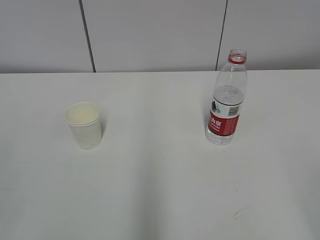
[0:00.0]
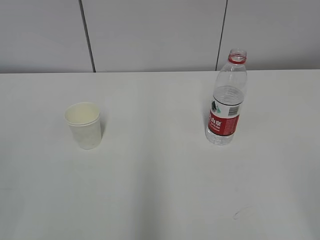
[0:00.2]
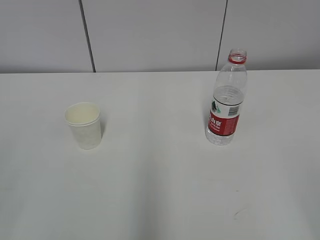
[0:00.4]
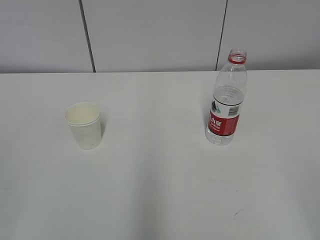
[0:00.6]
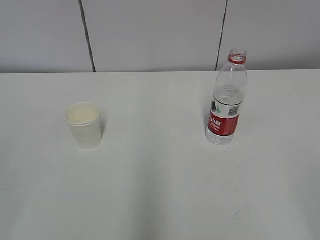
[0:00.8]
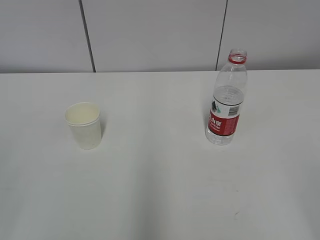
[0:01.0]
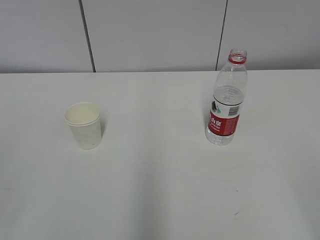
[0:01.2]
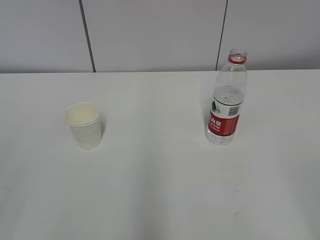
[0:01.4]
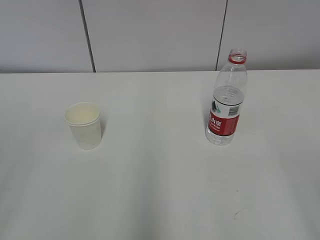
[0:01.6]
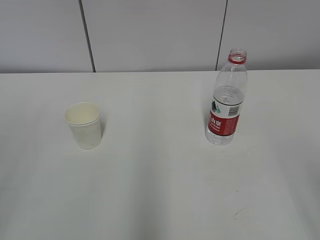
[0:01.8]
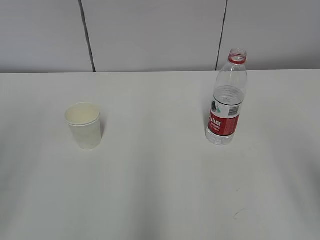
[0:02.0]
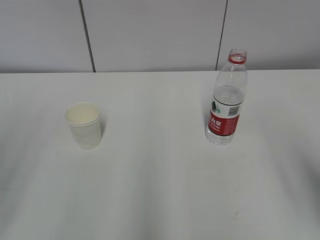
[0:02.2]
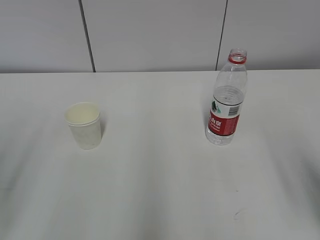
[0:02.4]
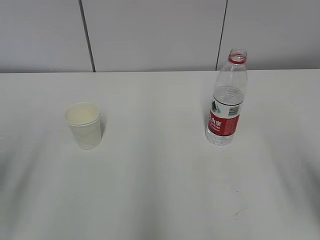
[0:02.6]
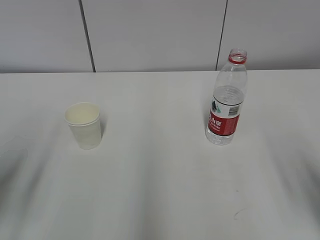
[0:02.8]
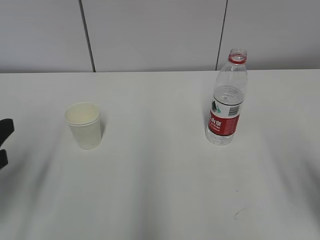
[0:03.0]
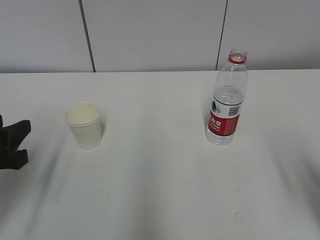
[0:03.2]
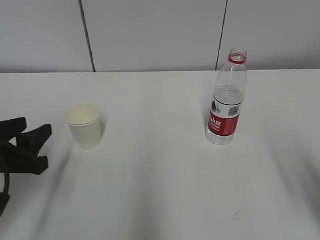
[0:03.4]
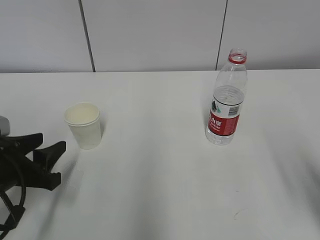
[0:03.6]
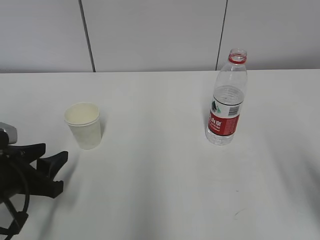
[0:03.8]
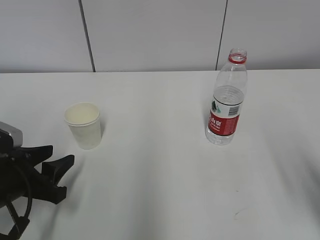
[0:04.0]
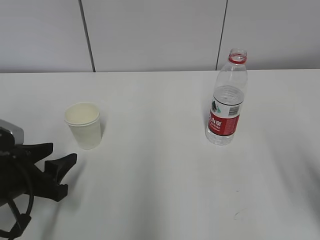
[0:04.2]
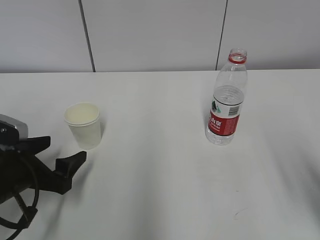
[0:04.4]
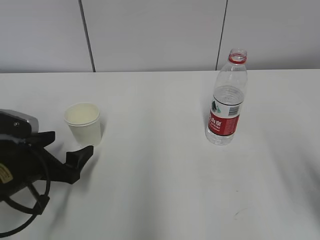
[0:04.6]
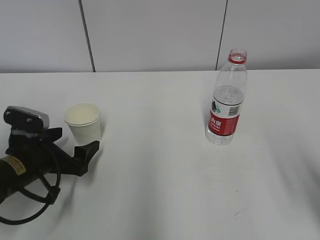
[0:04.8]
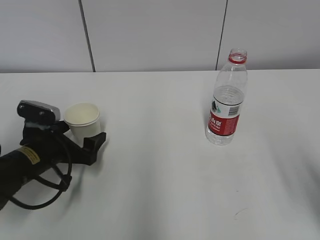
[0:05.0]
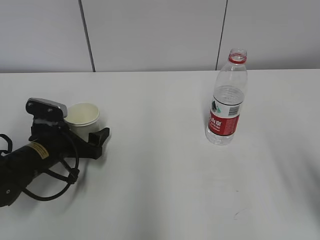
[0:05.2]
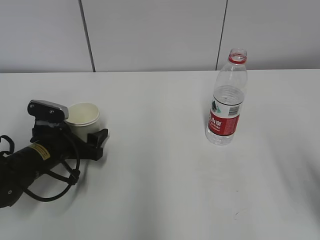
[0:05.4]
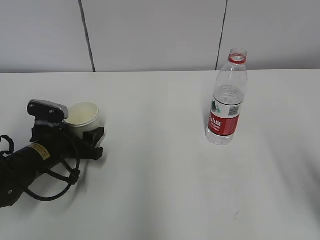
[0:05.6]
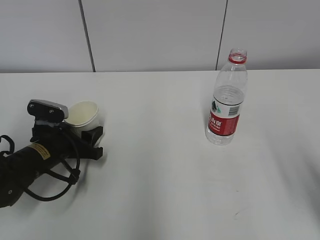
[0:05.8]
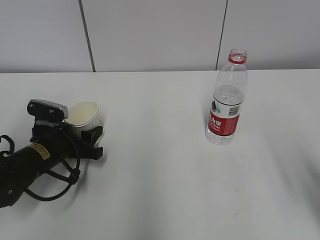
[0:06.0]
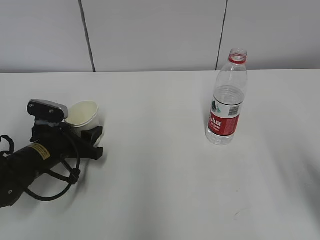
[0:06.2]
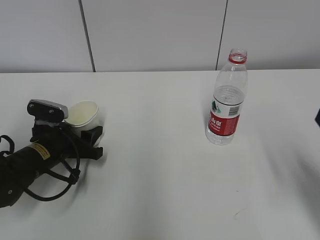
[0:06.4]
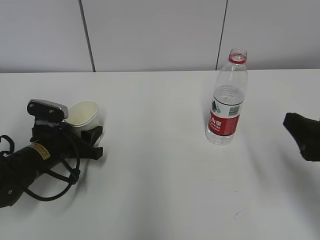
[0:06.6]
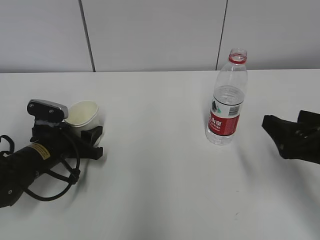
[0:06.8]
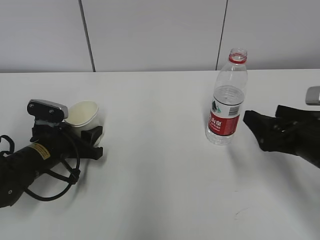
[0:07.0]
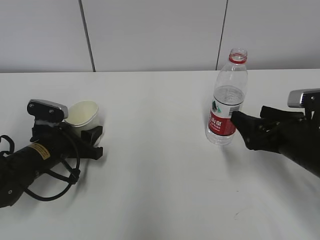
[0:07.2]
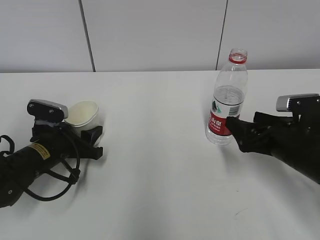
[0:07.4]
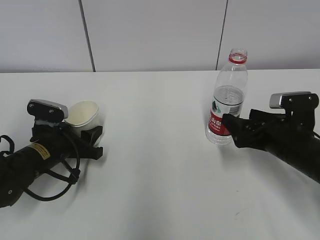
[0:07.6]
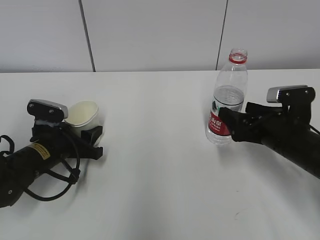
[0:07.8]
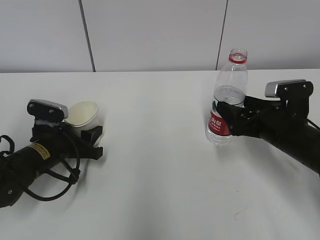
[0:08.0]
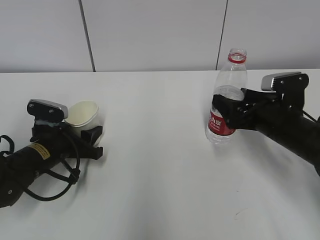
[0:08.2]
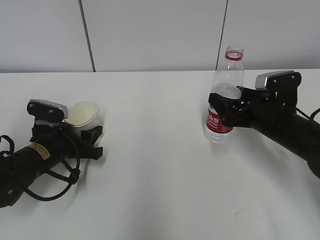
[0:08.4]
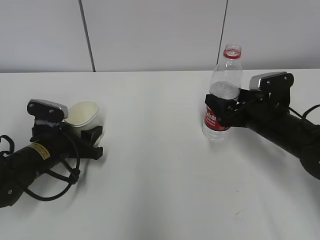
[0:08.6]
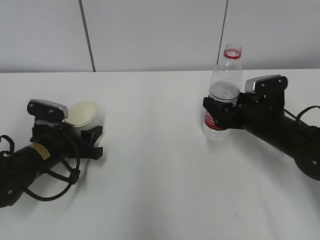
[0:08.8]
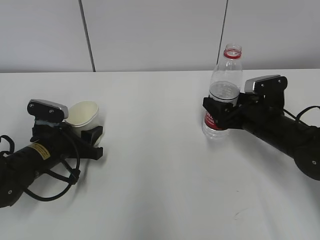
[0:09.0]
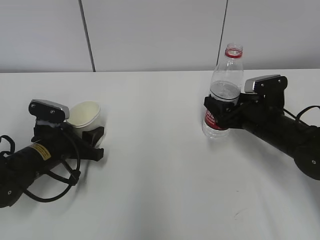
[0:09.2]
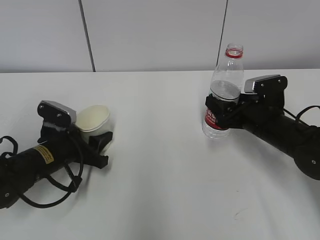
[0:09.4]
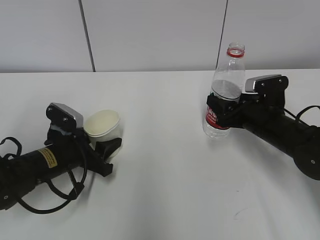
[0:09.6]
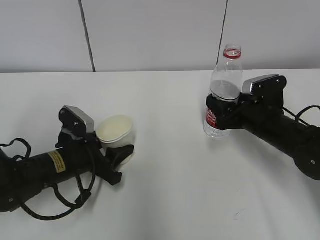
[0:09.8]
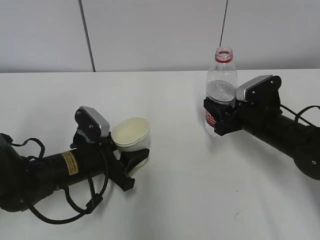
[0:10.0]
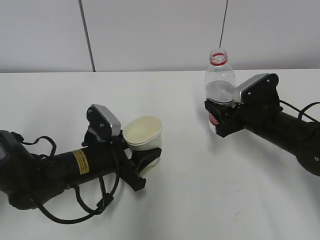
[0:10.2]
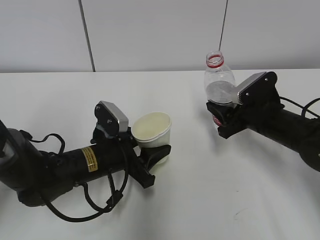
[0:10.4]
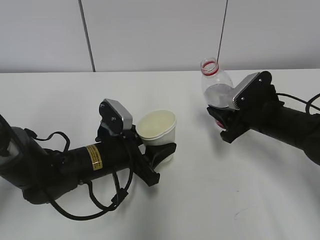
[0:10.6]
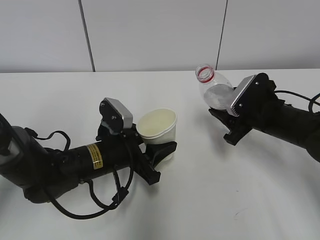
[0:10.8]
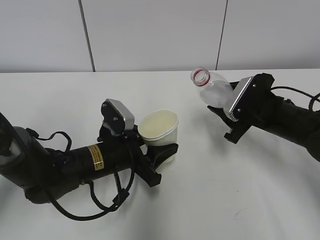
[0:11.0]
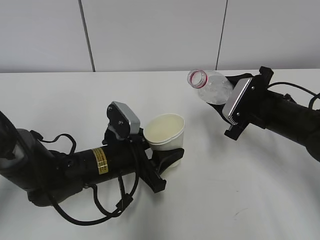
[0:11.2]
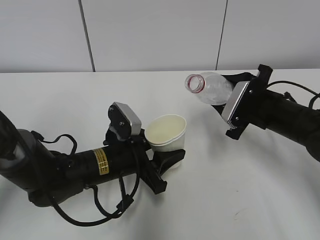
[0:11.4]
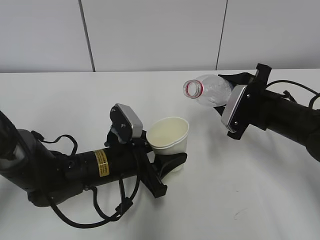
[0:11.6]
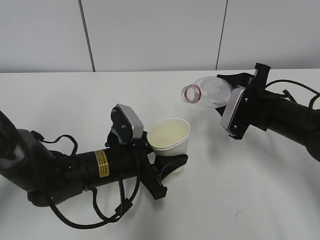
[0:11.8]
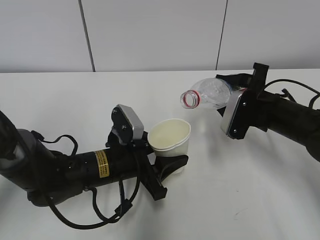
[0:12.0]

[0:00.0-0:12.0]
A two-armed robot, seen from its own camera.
Step, 0:00.0 to 0:07.6: Grab the paper cup with the left hand.
Step, 0:07.8 to 0:08.2: Grab the water bottle with the right hand.
Step, 0:08.4 to 0:10.8: Lift the paper cup with the left hand.
0:01.6 to 0:03.0: The grippers both shift forward and downward by roughly 15 cm.
0:03.0 to 0:04.4: The left gripper moves downward and forward, about 10 cm, and opens.
0:04.4 to 0:06.0: The left gripper is displaced forward by approximately 10 cm, and closes.
0:06.0 to 0:07.6: The right gripper moves forward and downward, approximately 20 cm, and opens its fingers.
0:07.6 to 0:09.0: The right gripper travels forward by approximately 5 cm.
0:09.0 to 0:10.4: The left gripper shifts roughly 10 cm to the right. Meanwhile the right gripper closes its fingers.

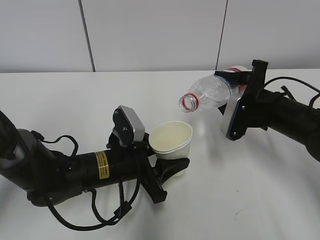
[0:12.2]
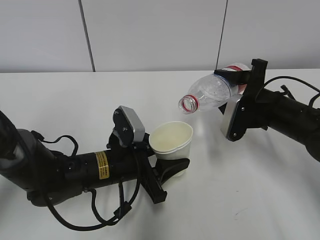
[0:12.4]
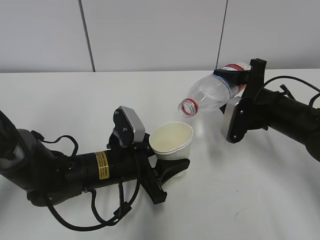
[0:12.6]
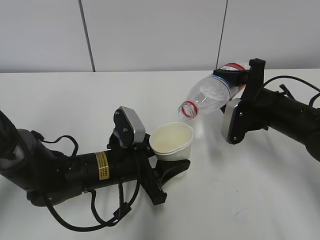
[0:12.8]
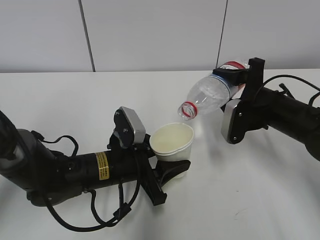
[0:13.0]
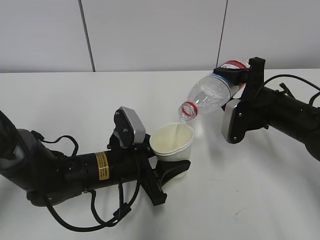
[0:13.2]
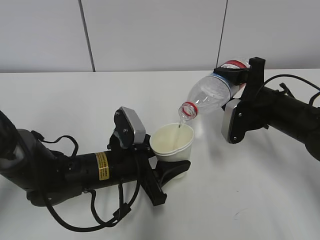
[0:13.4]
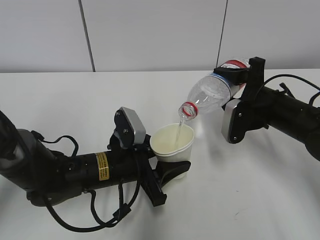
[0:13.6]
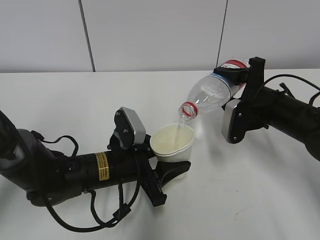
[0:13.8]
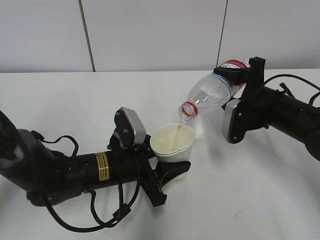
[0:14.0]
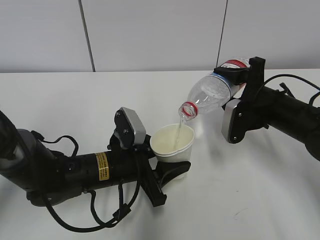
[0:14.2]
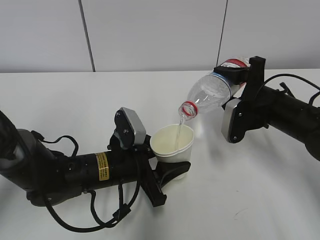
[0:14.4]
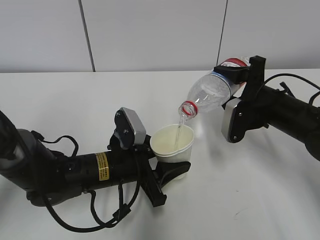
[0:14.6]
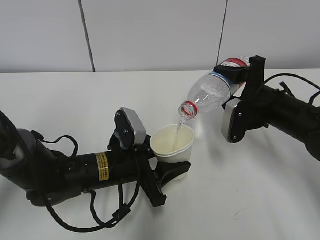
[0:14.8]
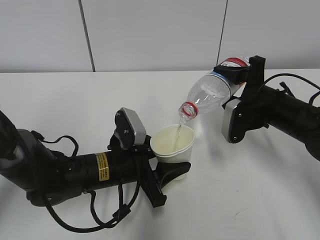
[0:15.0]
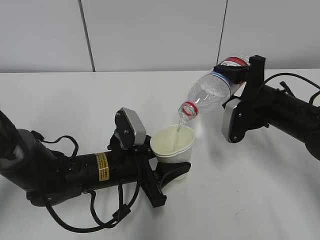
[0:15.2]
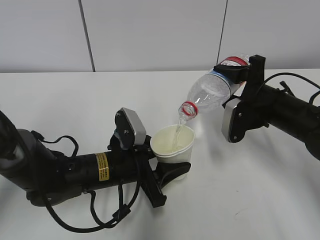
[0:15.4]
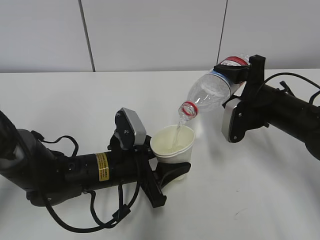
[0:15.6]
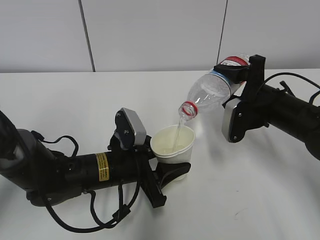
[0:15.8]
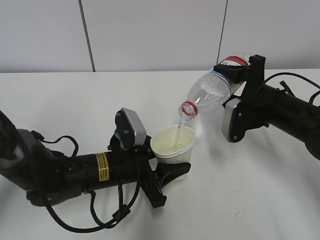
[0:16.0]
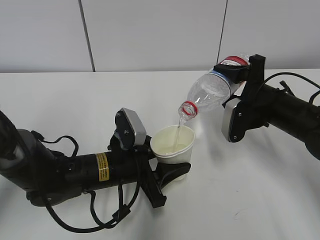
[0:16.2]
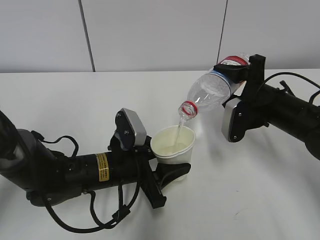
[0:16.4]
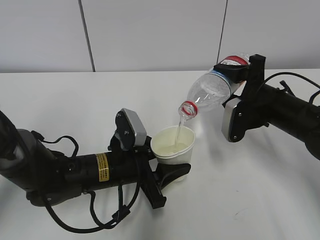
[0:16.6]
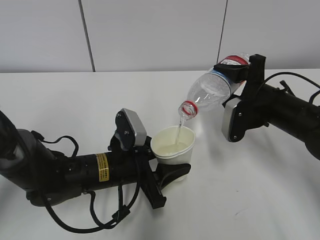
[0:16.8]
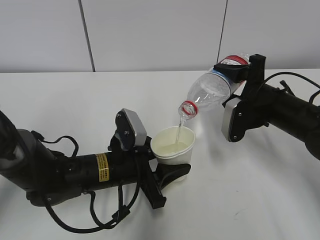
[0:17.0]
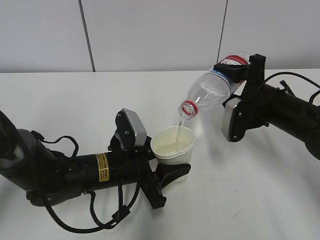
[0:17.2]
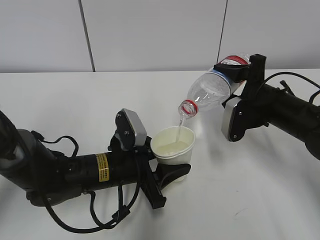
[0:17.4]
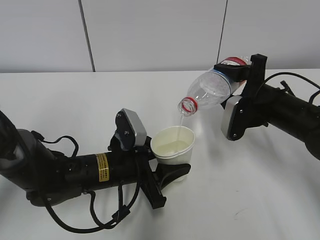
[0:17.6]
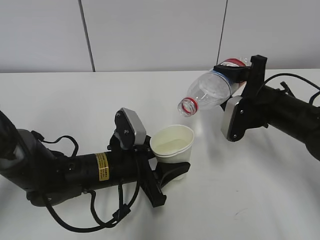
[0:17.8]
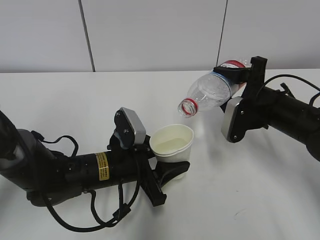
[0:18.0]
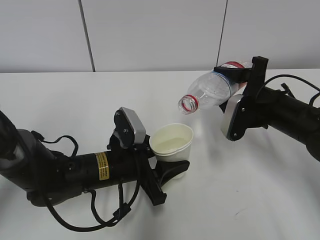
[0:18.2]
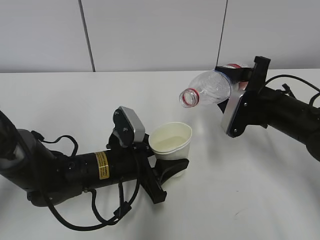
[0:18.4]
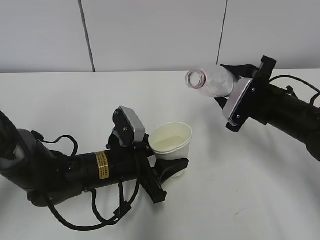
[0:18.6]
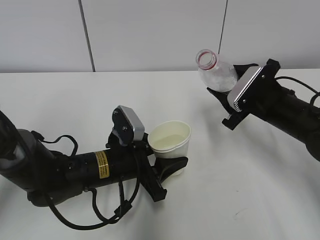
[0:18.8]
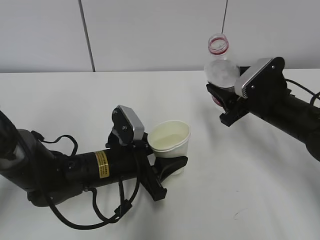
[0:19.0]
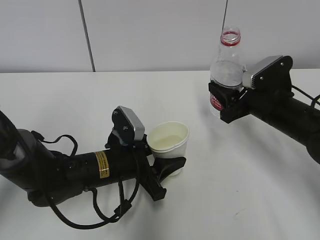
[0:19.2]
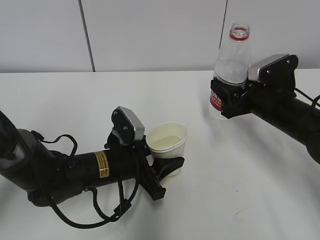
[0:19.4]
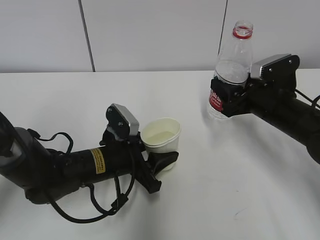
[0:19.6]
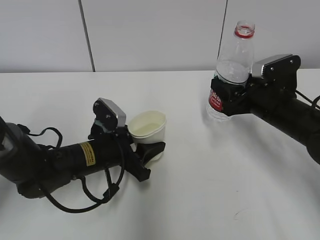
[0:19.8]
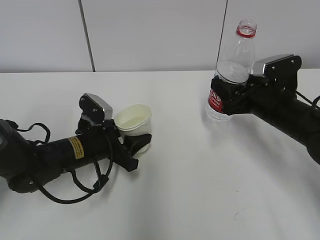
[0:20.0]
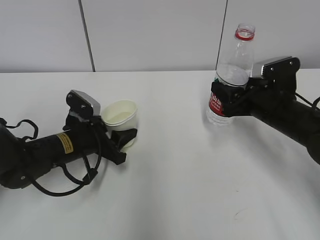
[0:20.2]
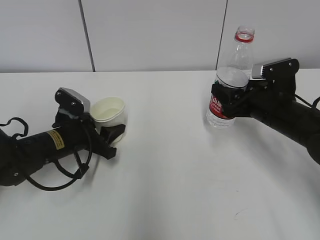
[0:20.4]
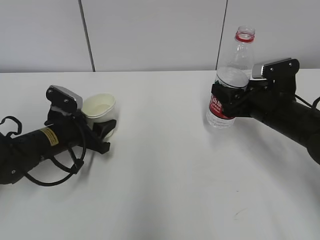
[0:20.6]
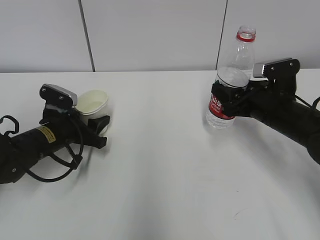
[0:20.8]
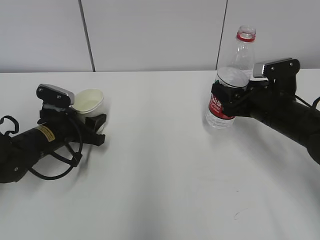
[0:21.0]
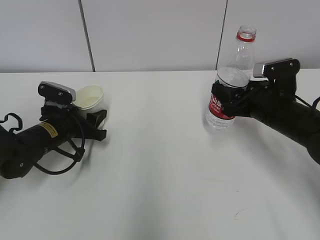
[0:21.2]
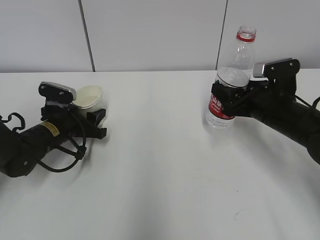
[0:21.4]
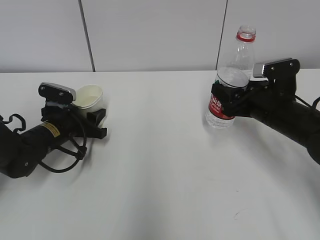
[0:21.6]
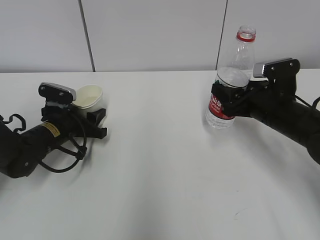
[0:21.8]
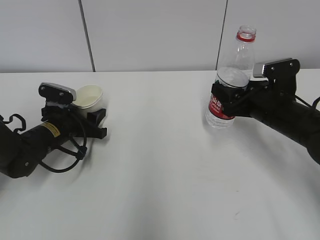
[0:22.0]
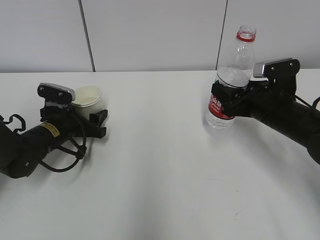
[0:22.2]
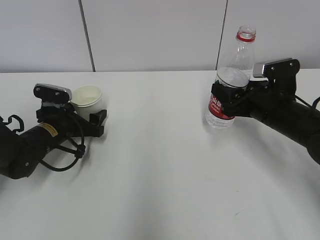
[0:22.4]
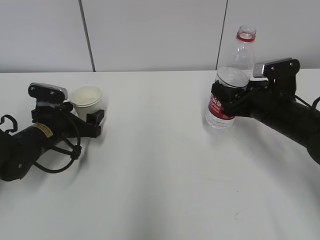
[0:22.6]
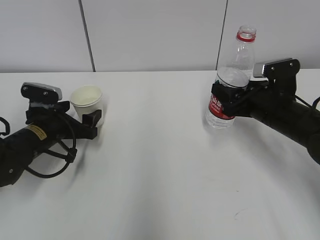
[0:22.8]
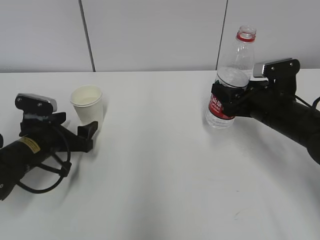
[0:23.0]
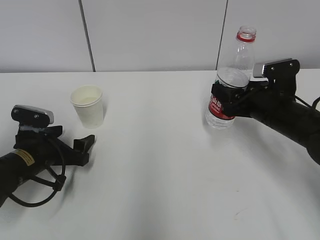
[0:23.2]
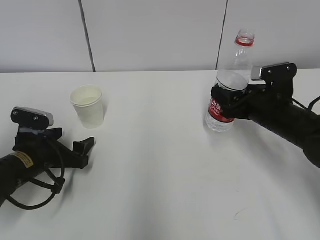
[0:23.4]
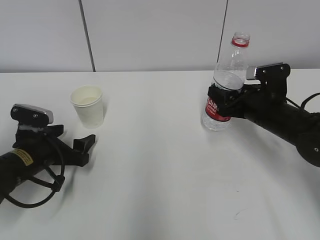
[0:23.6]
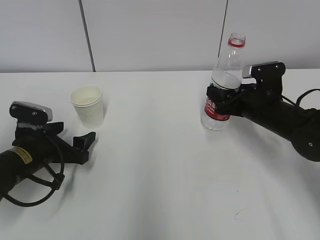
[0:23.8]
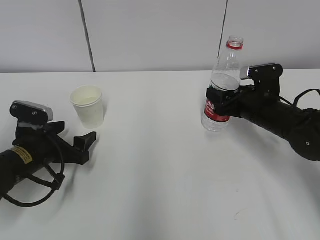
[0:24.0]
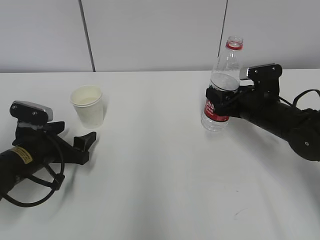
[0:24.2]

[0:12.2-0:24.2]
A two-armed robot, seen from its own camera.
Step, 0:12.2 to 0:14.8: Fill water with the left hand.
Step, 0:12.2 to 0:14.8: Pour water with the right hand.
Step, 0:16.4 to 0:18.4: Place the paper cup with the left hand.
0:12.2 to 0:13.8: There are only small adjustments of the grippers.
0:13.8 to 0:16.6: Both grippers stay about where they are.
0:16.6 to 0:18.2: The grippers move only a little.
0:19.8 to 0:21.2: The left gripper moves to the left and forward, roughly 10 cm.
0:21.2 to 0:22.6: The left gripper opens.
0:22.6 to 0:24.2: The left gripper is displaced backward by approximately 5 cm.
